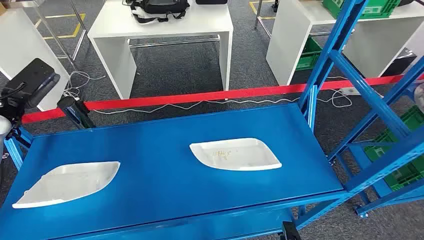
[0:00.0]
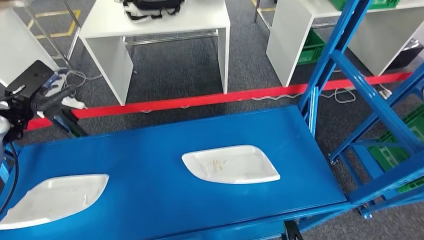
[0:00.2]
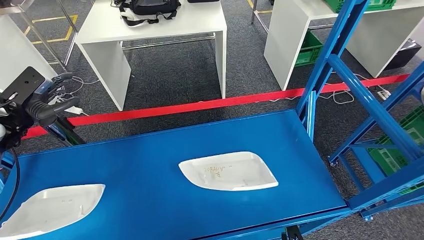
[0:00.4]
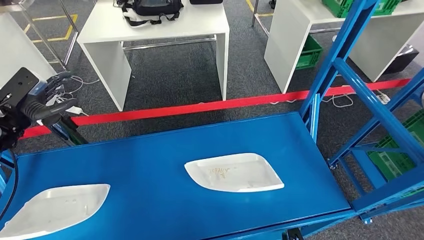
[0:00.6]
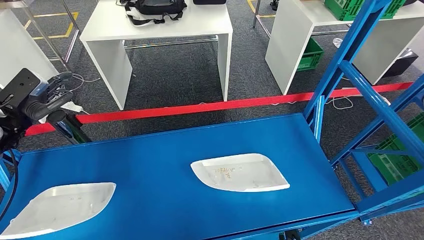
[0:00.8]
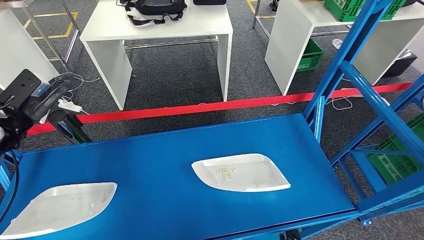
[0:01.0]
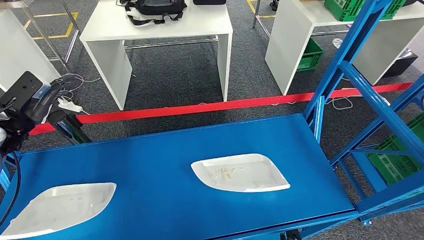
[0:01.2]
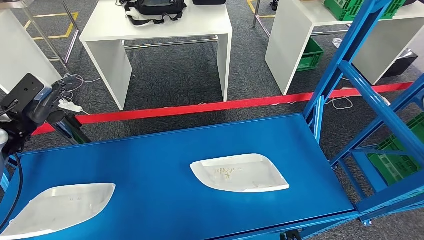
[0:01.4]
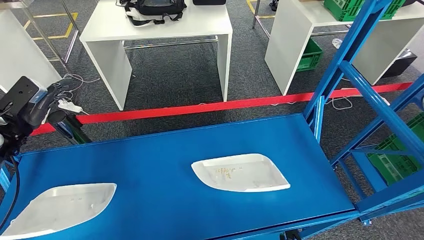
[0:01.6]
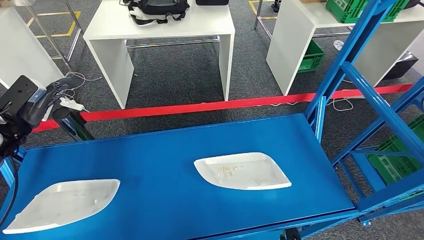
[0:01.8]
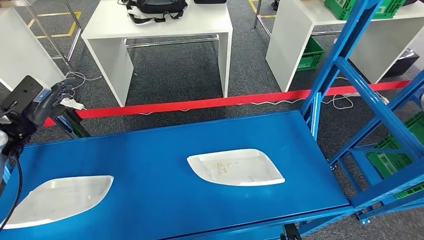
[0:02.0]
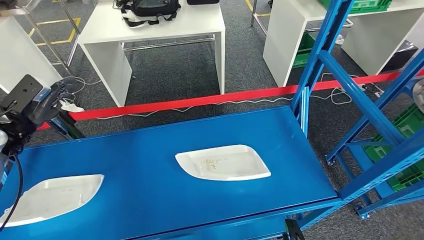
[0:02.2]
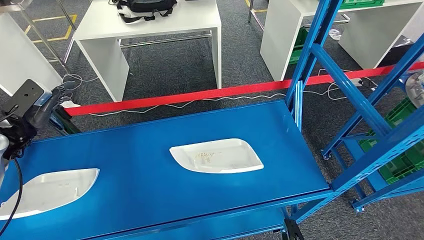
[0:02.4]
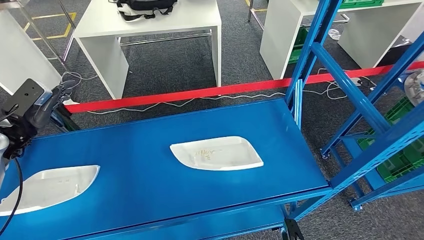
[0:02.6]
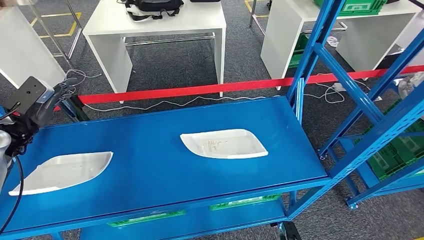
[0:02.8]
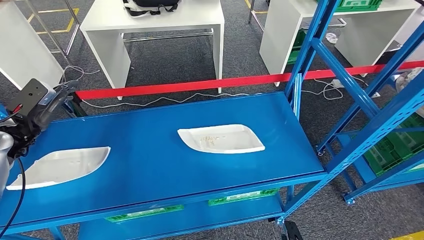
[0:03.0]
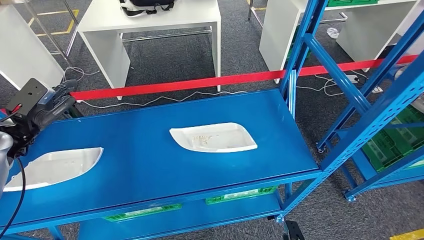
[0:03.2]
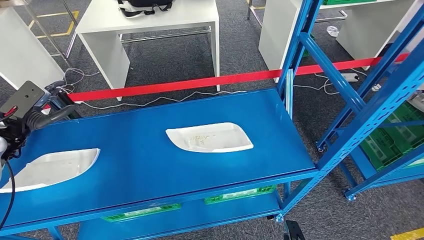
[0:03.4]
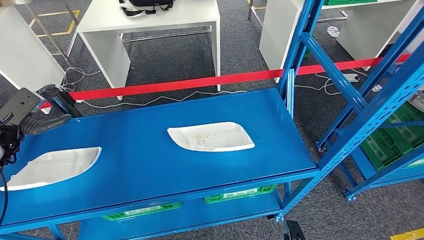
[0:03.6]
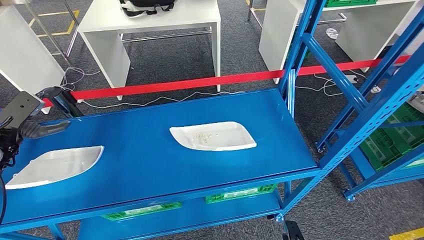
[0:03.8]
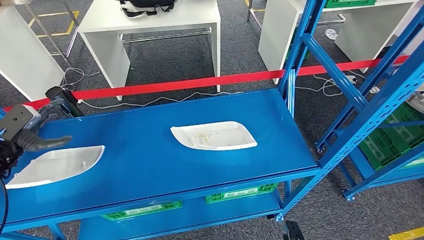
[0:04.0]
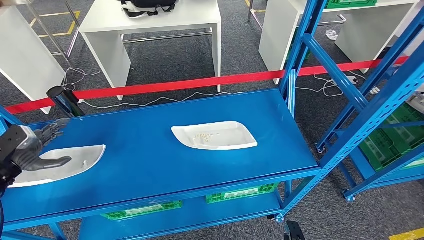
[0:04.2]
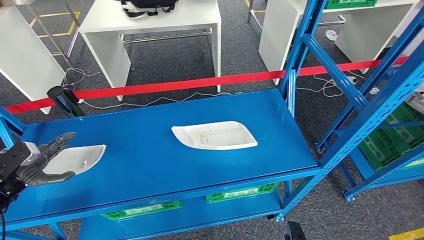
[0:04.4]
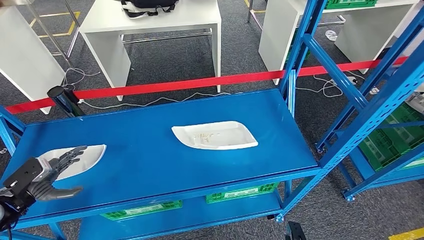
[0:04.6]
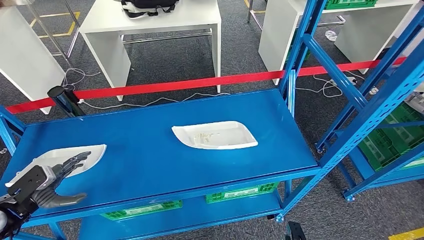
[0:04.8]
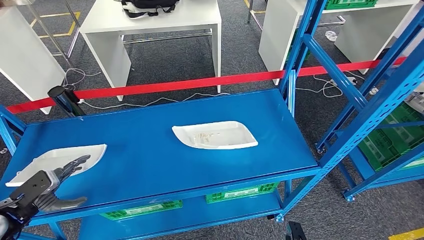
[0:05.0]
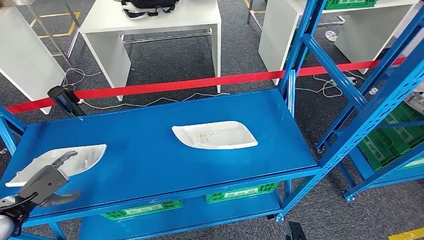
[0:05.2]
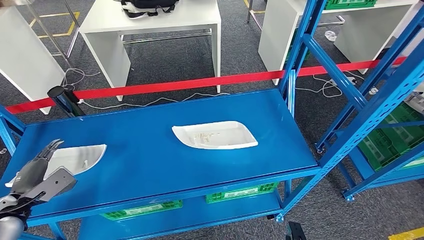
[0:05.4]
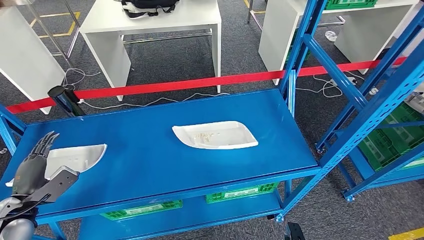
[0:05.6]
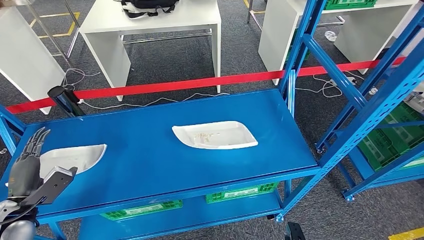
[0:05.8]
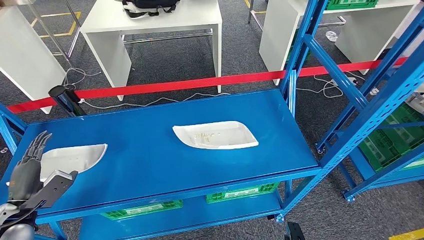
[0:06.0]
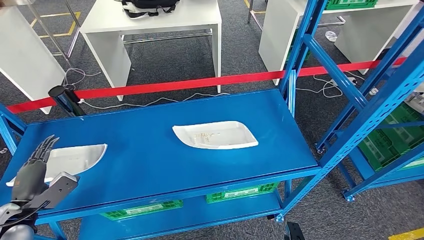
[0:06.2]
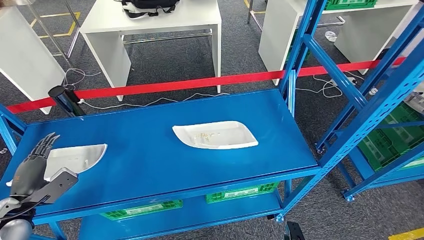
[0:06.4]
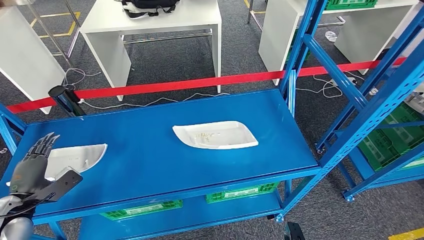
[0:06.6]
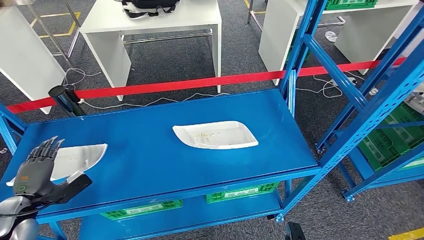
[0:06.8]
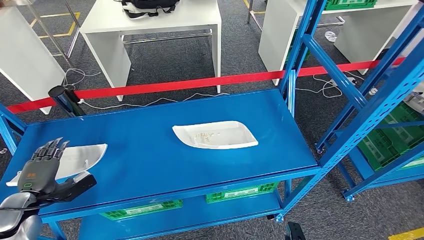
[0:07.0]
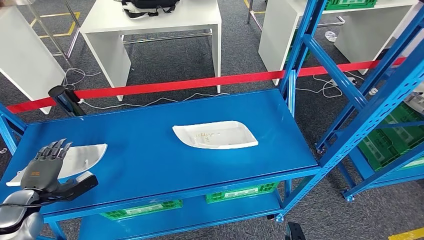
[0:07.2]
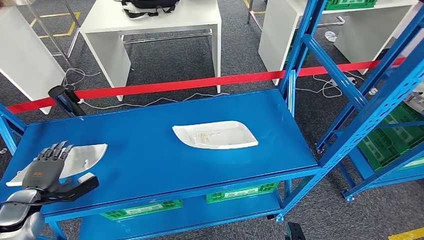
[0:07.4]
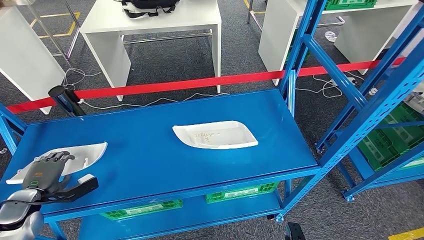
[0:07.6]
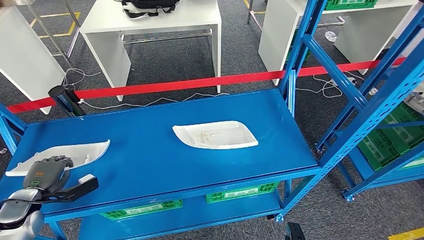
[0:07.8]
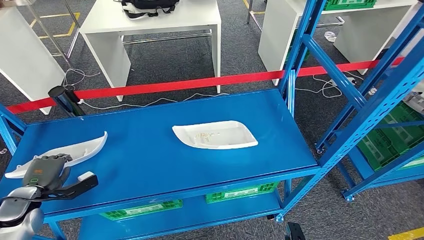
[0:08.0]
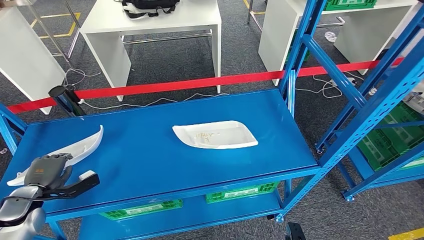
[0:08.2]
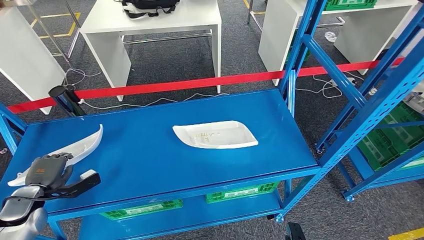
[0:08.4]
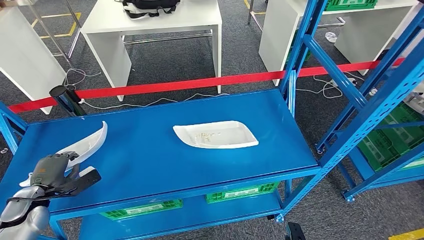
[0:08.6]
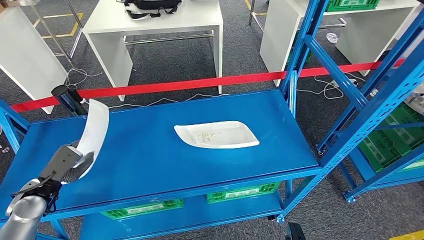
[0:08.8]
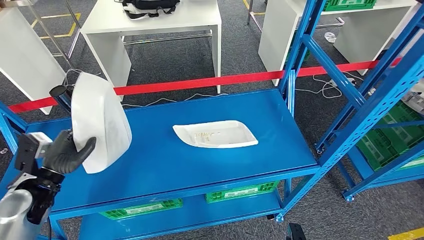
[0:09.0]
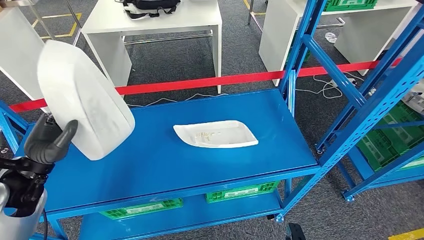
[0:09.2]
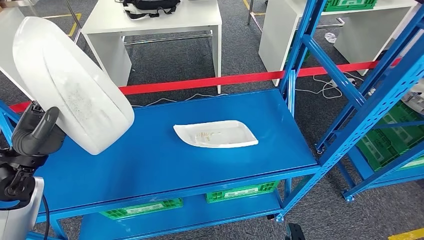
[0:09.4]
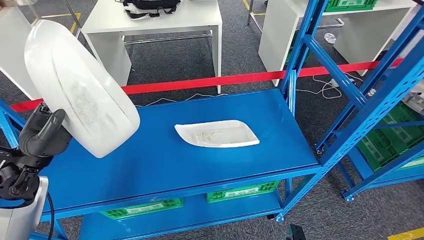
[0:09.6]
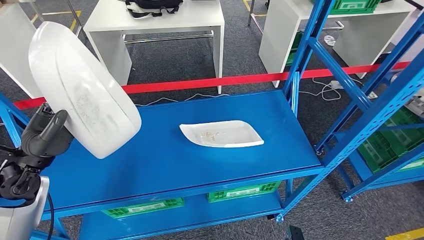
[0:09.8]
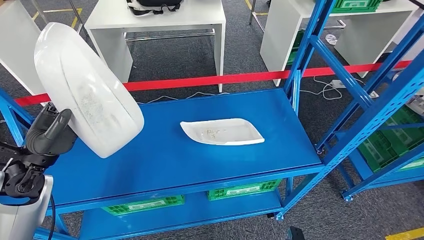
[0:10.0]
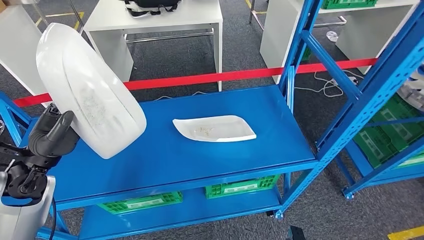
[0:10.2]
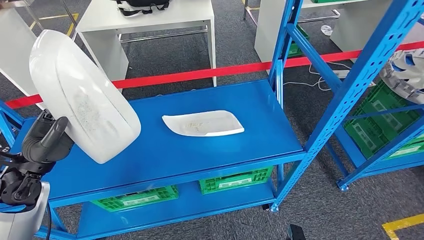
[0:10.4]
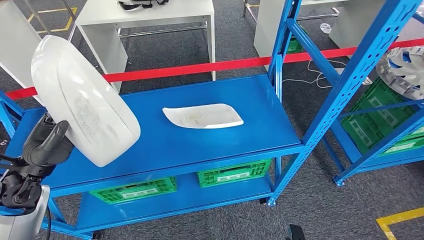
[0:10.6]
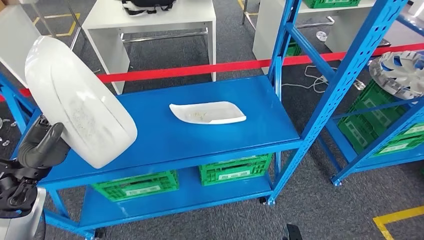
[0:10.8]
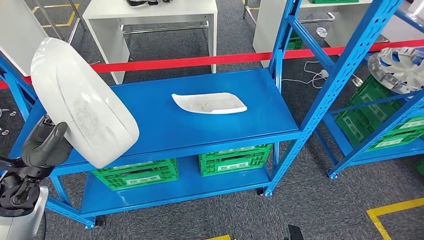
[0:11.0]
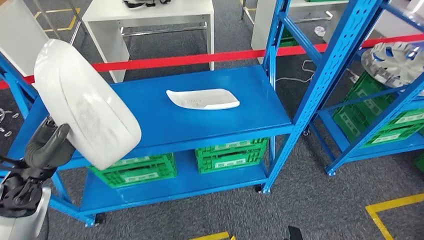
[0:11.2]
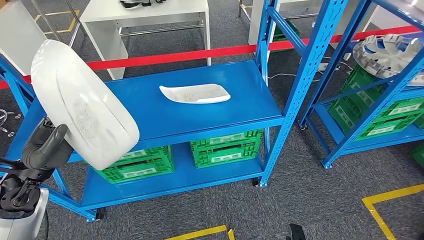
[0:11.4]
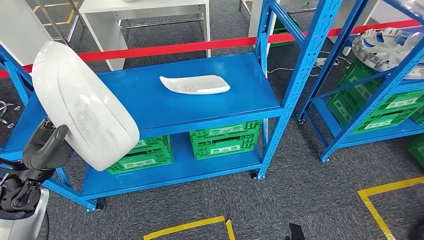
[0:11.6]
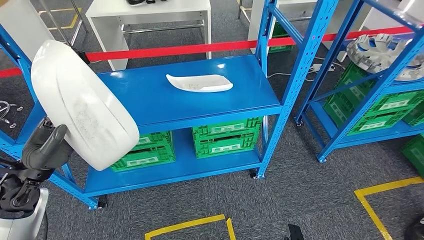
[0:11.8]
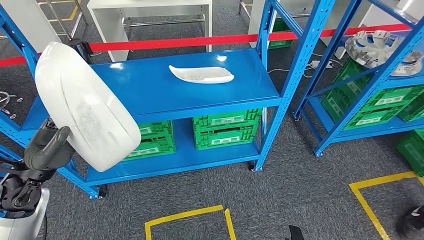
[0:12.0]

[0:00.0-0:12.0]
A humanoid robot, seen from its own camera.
Step, 0:00.0 to 0:12.0: Pick up the small component from the shelf.
0:04.4 to 0:06.0: The left hand is displaced backward and to the right by about 10 cm.
0:06.0 to 0:07.6: The left hand ends up approximately 5 cm from where it was.
0:07.6 to 0:09.0: The left hand heads to the right and upward, covering roughly 10 cm.

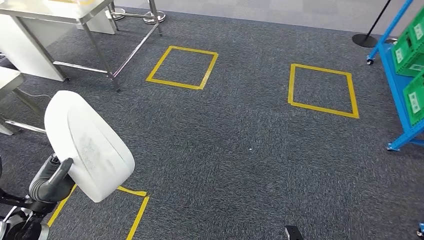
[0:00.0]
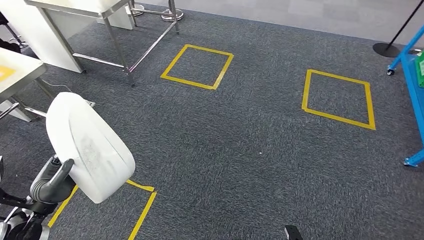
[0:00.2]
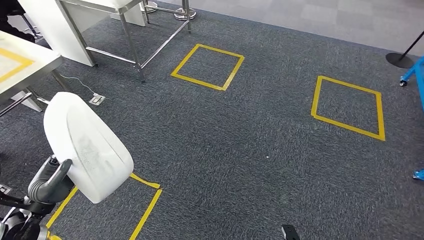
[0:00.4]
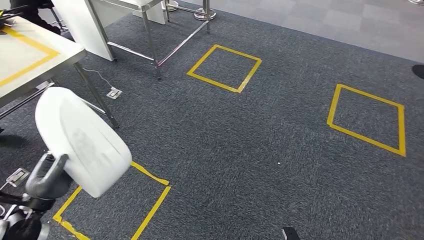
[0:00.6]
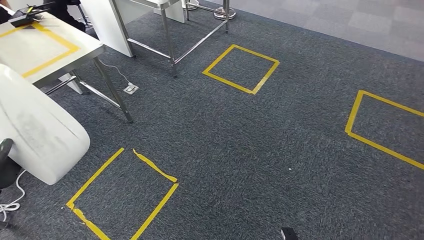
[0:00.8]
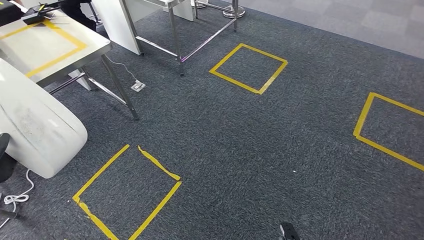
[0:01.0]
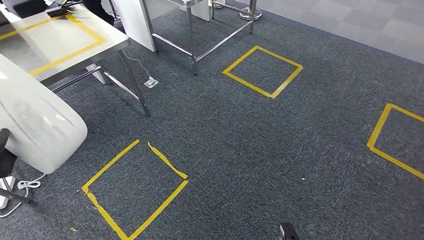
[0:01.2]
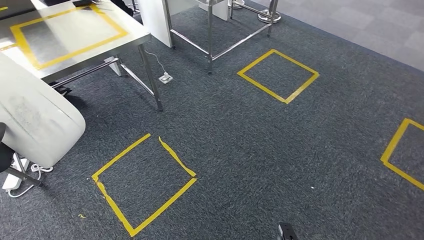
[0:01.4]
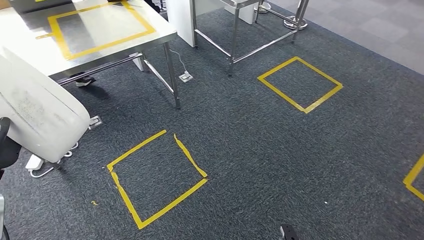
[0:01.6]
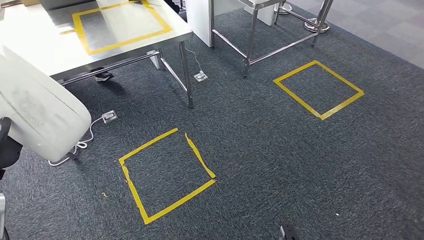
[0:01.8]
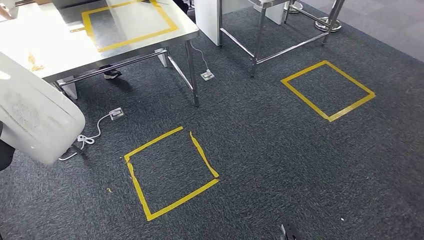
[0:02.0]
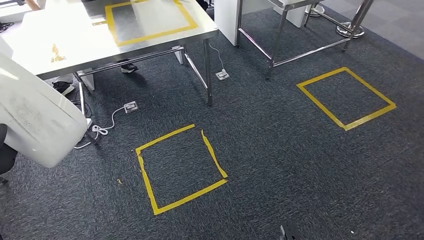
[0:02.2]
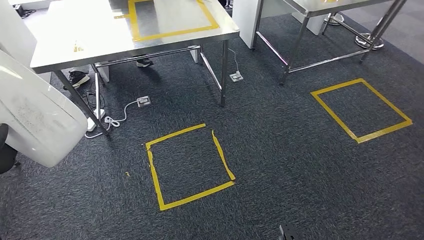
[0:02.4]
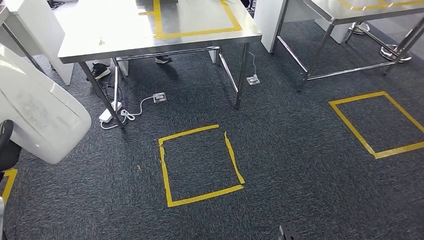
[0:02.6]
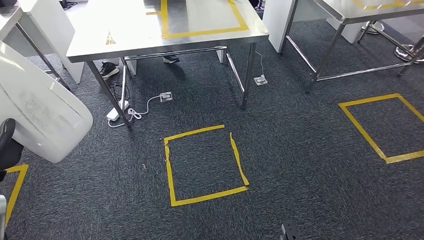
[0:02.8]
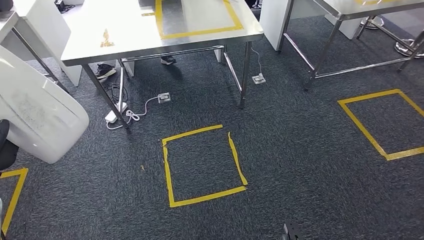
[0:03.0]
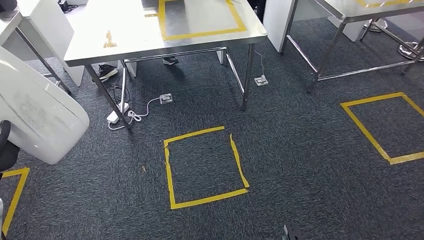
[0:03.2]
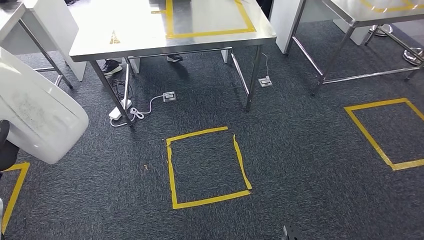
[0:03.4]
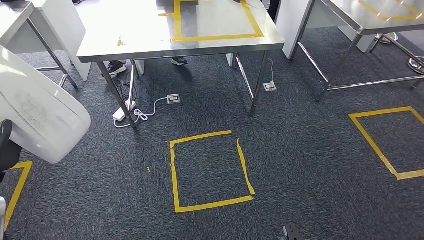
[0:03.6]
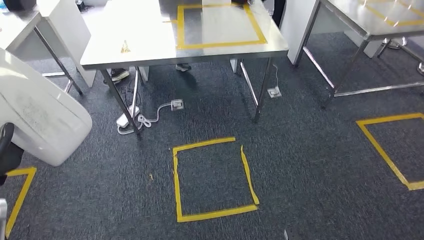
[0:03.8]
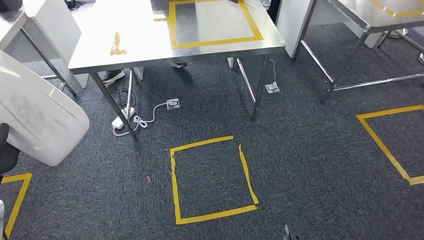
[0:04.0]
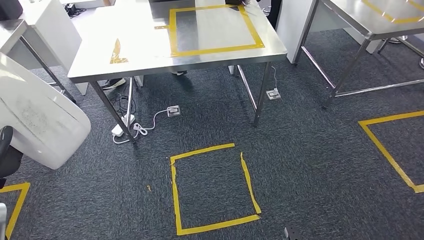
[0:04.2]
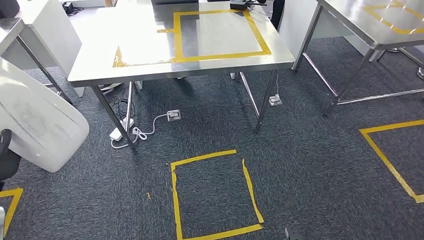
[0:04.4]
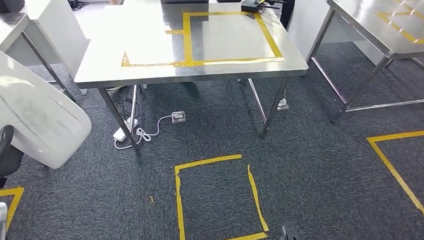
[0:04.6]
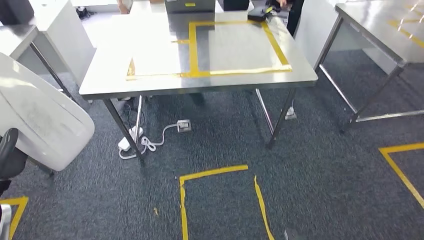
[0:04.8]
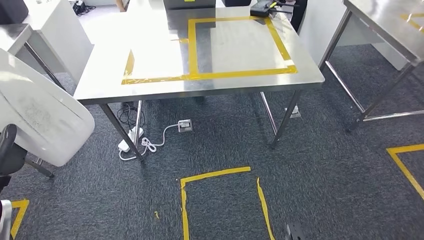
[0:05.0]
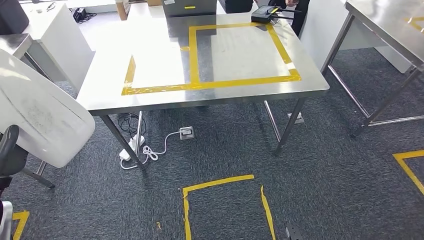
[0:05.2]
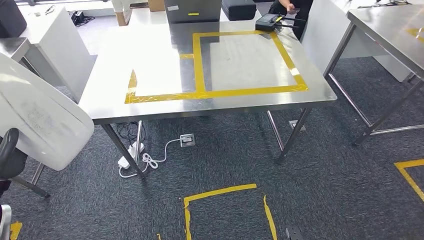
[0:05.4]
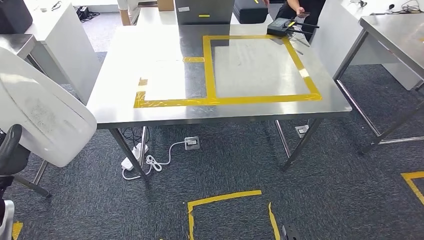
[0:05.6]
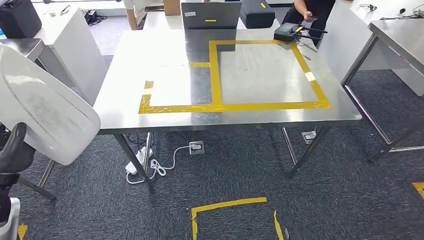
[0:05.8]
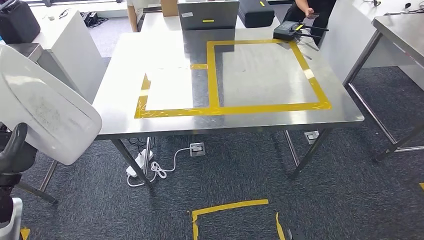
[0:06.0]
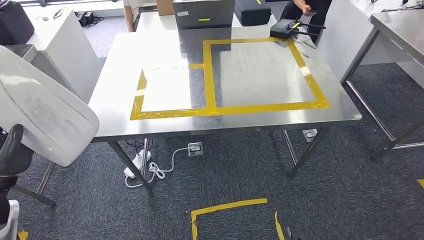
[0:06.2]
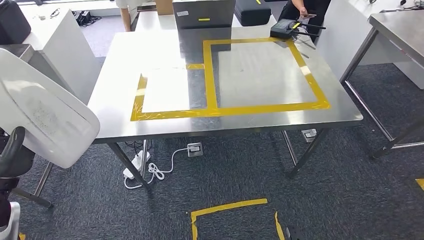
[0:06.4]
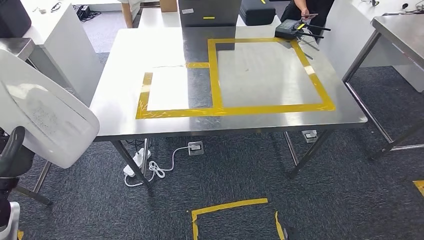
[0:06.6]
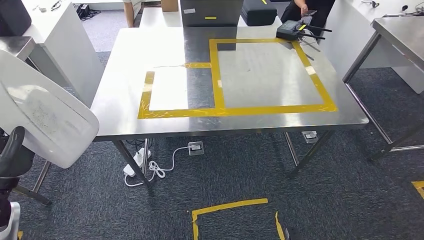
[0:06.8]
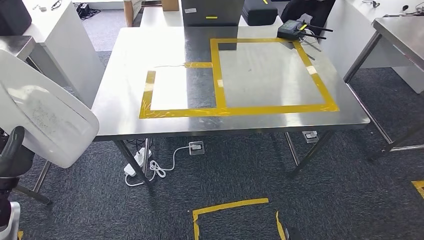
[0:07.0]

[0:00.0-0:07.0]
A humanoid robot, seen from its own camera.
Step, 0:00.0 to 0:02.6: Move the small component to the workbench.
